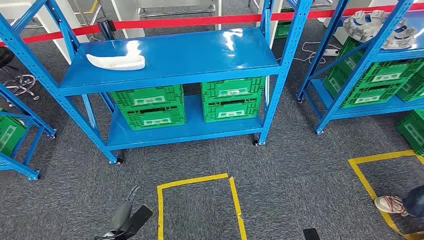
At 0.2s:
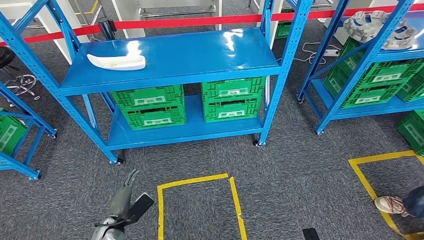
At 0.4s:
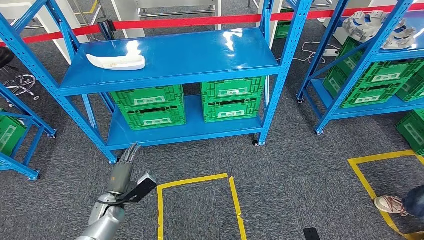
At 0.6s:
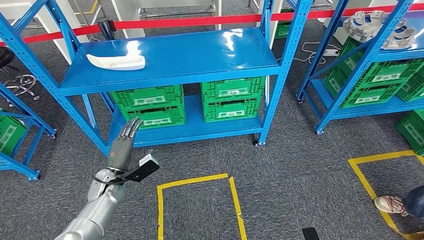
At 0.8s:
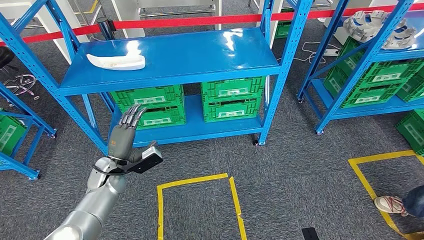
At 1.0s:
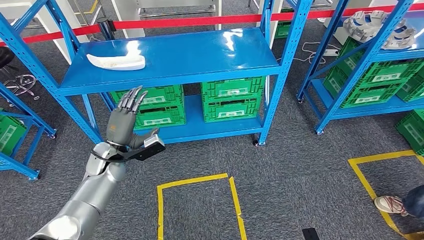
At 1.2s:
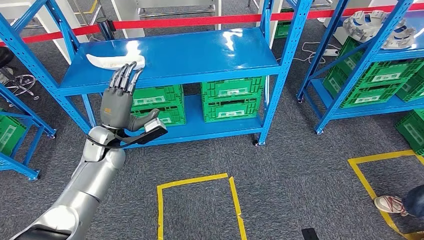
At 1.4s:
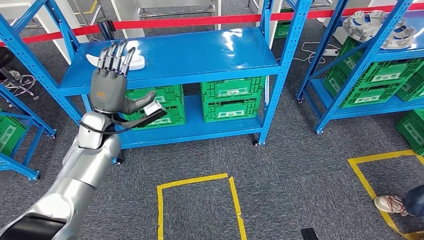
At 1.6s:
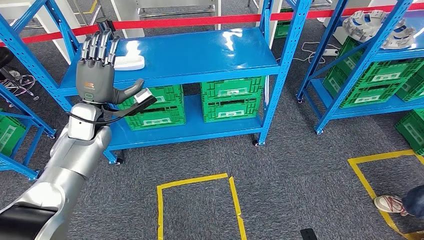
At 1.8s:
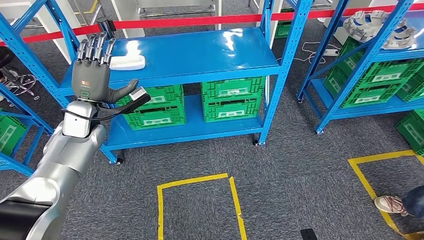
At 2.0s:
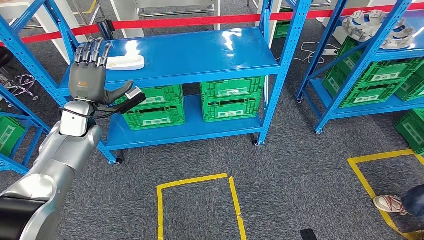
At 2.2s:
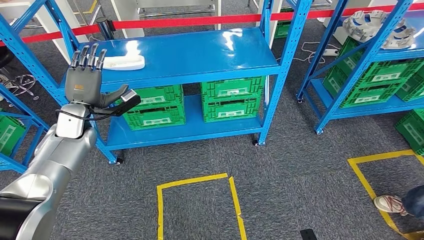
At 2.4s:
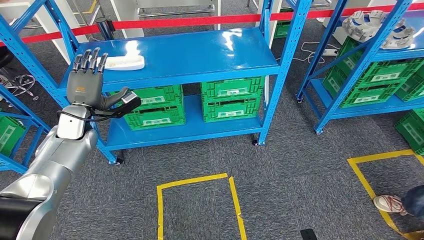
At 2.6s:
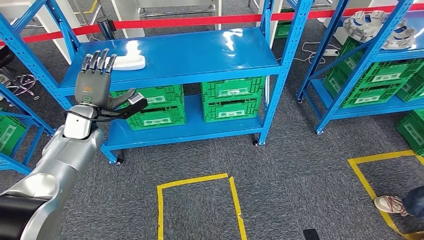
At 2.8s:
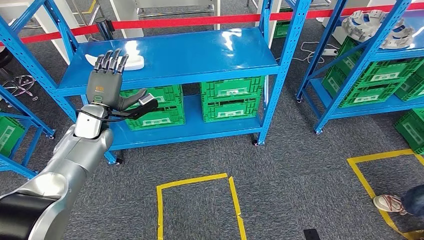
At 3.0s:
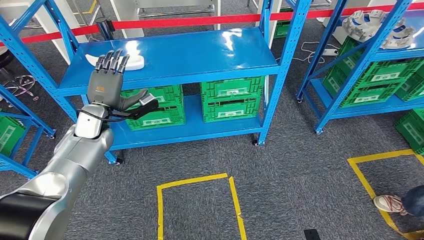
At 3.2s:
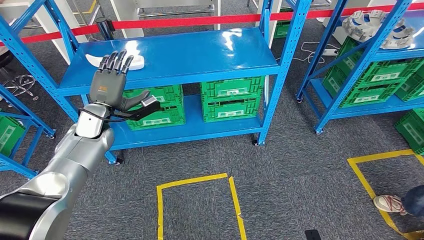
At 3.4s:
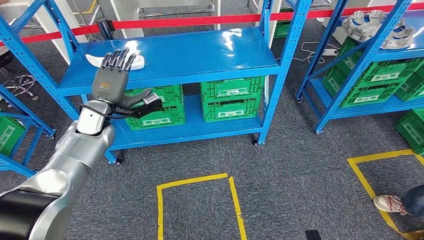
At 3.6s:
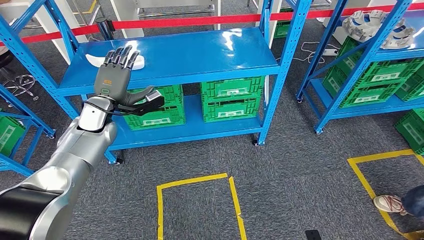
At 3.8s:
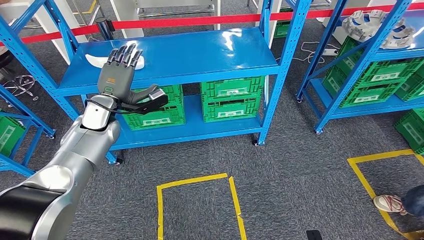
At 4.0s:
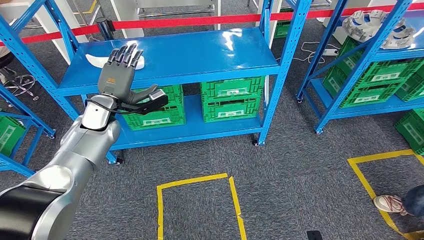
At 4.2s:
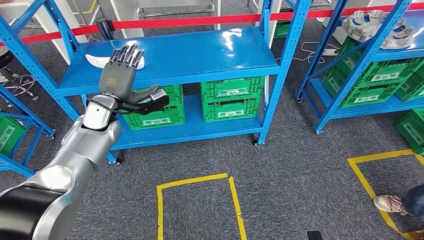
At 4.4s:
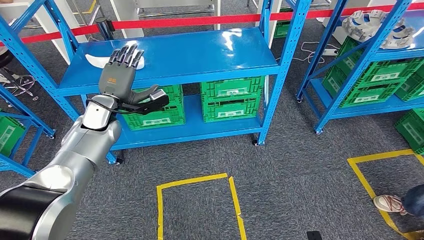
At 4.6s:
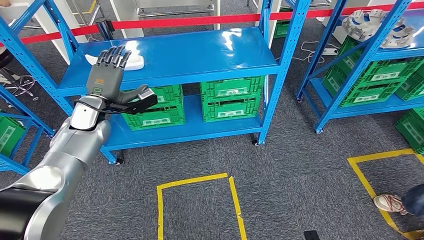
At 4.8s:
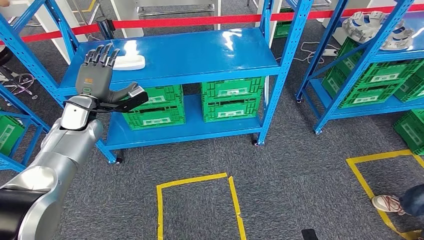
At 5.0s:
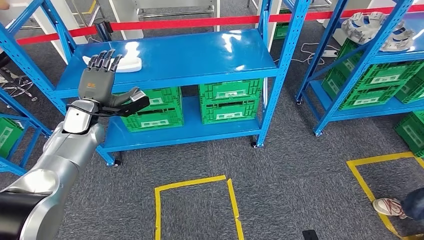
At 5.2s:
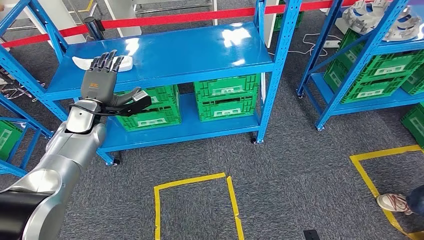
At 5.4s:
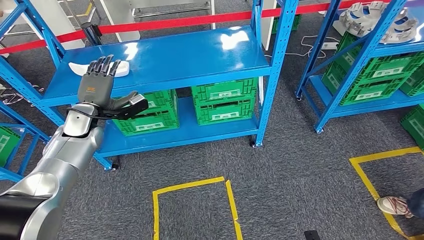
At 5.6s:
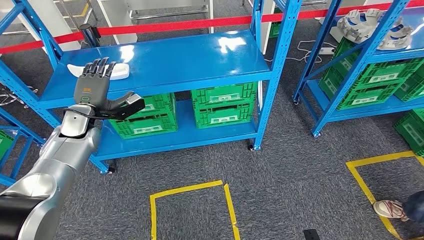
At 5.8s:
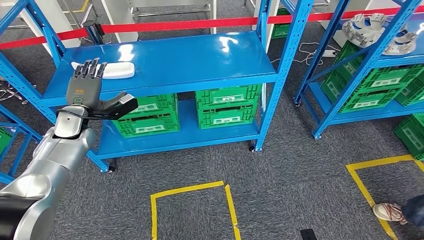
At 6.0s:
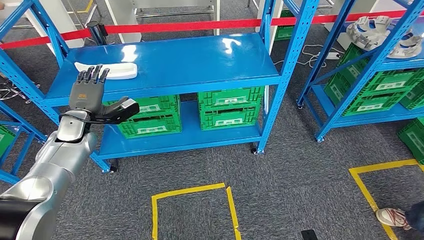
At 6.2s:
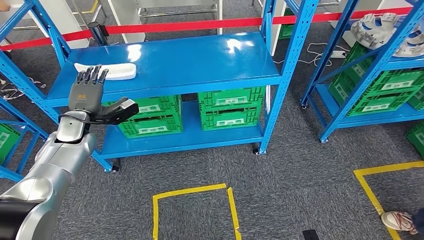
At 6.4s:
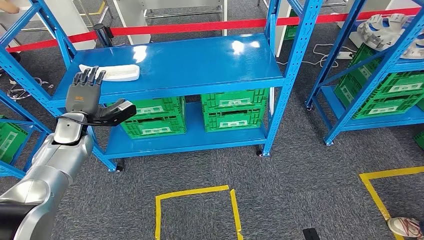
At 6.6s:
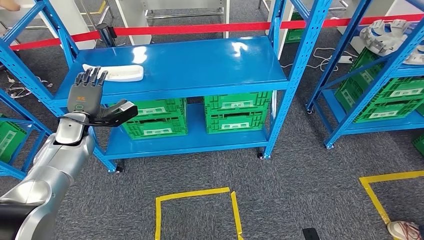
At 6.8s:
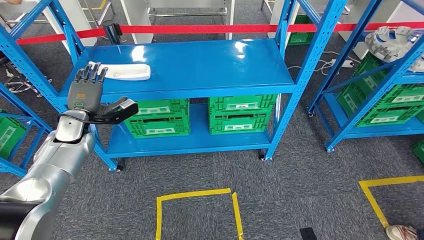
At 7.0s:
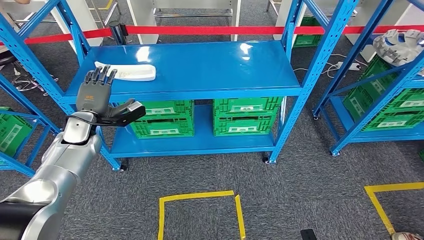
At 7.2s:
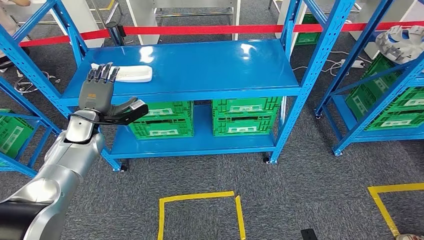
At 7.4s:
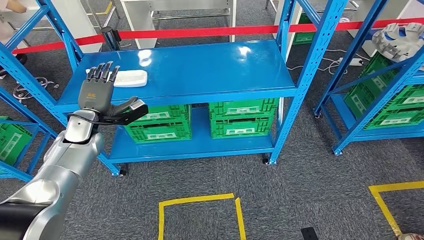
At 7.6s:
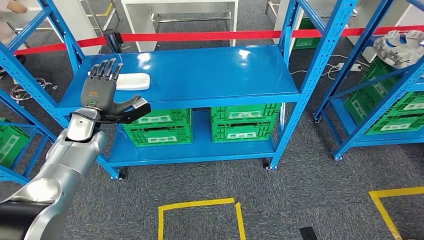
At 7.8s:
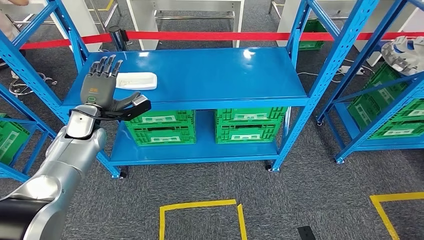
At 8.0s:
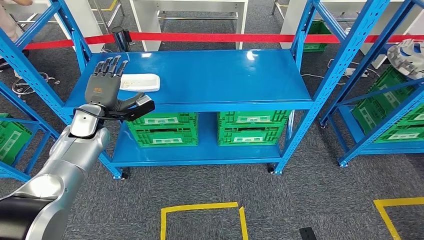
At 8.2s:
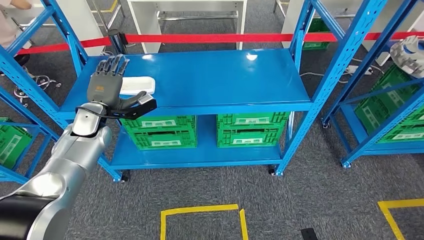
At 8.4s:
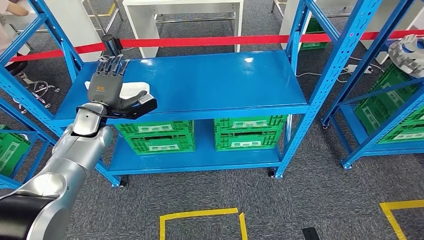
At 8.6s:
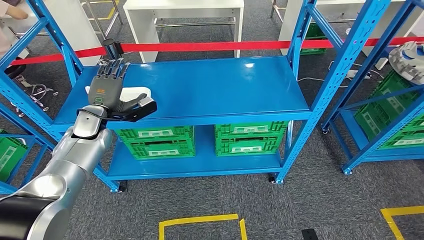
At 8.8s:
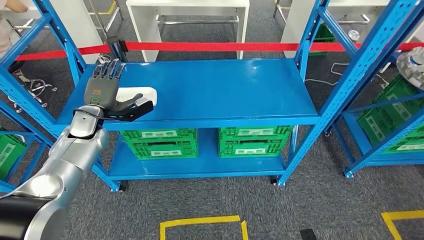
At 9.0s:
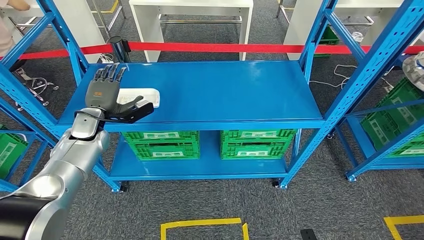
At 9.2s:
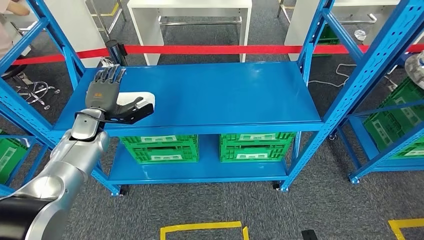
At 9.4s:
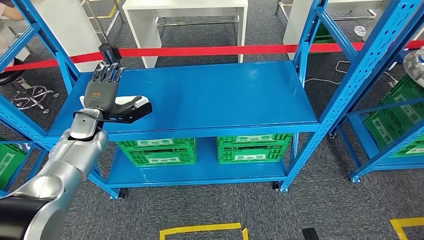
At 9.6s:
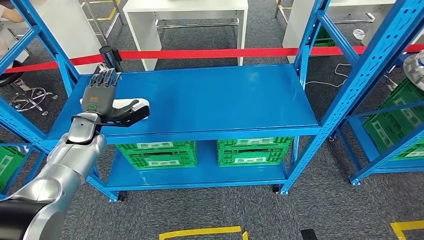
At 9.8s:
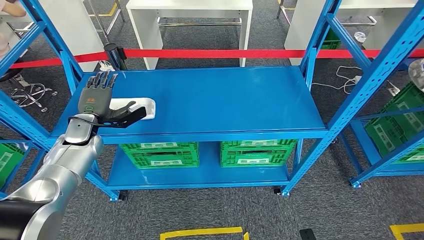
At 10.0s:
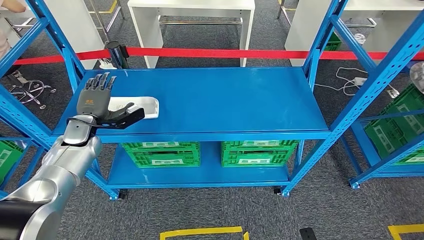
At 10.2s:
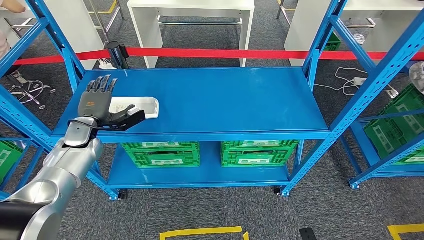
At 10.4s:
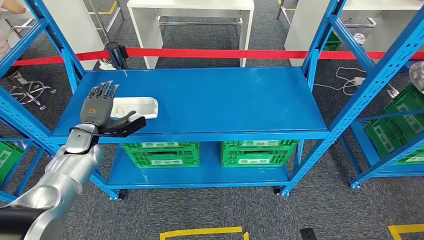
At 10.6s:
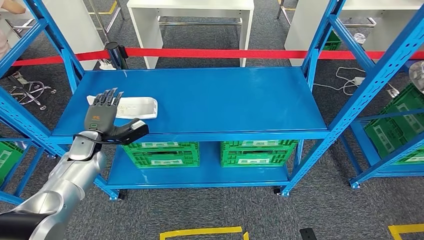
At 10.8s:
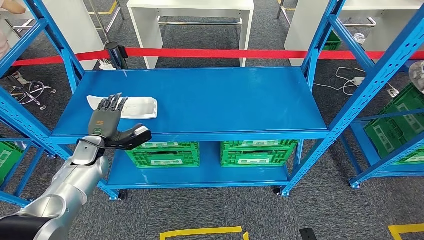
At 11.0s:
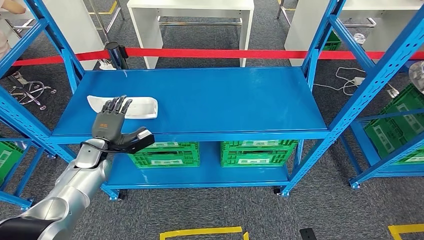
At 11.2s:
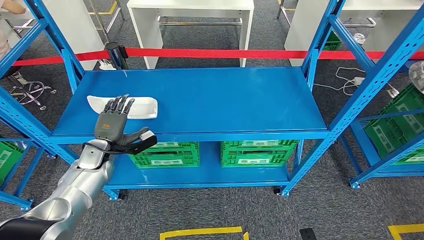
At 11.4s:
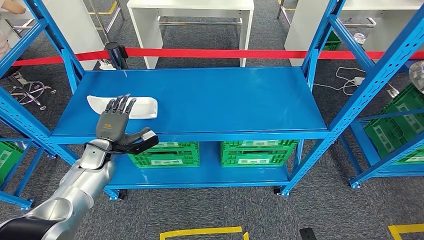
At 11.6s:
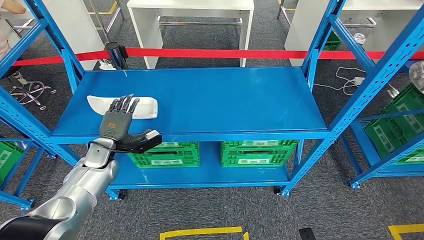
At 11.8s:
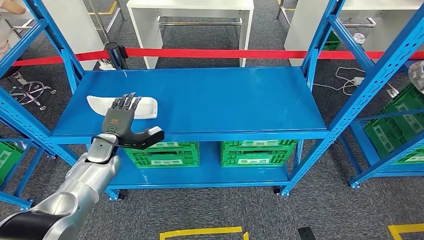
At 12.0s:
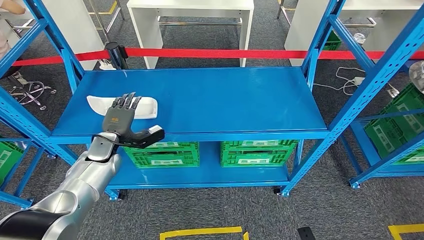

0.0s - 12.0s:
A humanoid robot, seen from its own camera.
3.0s - 4.4s: The hands make only small movements.
10.4s - 12.0s: The left hand moves to the right, roughly 5 cm.

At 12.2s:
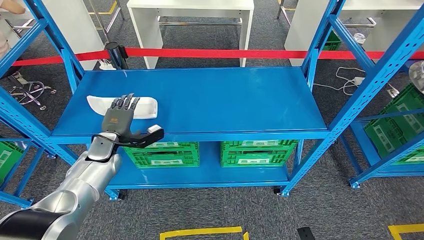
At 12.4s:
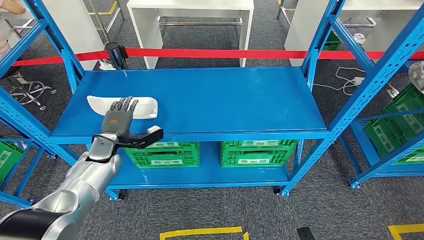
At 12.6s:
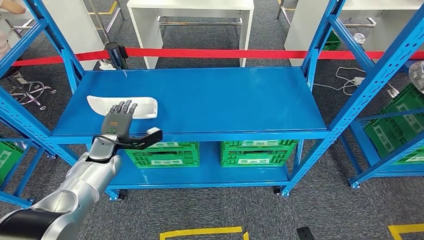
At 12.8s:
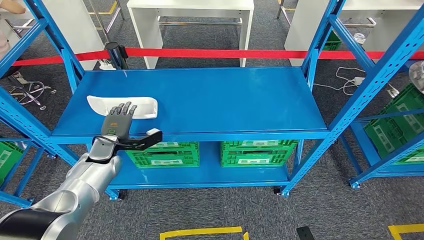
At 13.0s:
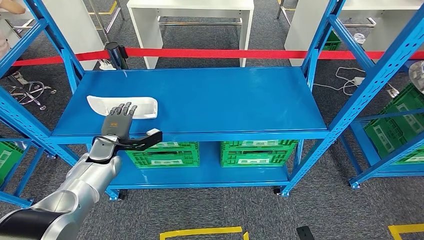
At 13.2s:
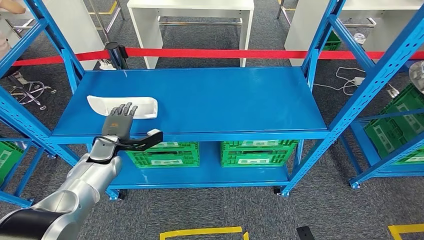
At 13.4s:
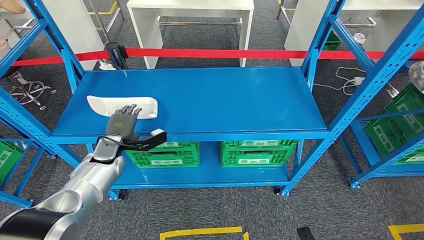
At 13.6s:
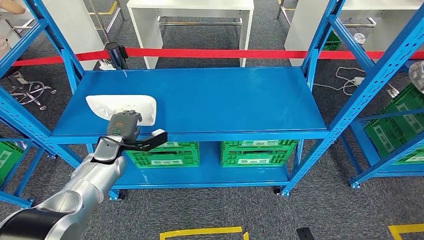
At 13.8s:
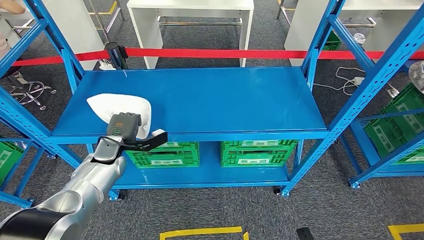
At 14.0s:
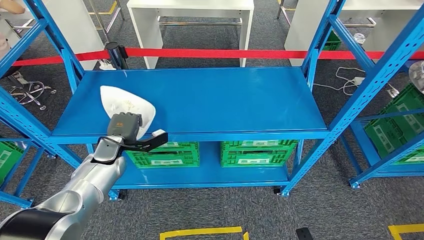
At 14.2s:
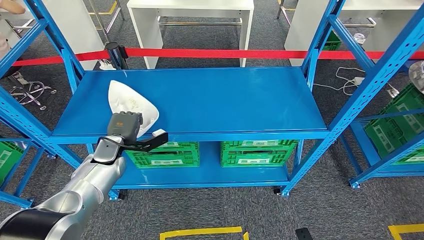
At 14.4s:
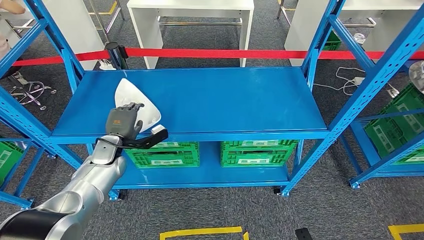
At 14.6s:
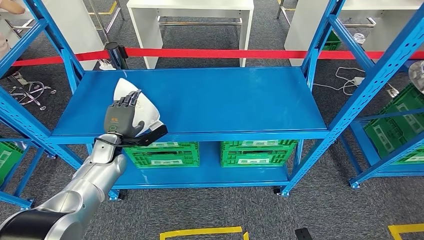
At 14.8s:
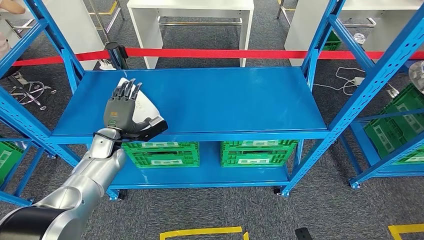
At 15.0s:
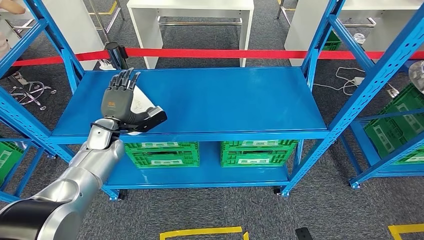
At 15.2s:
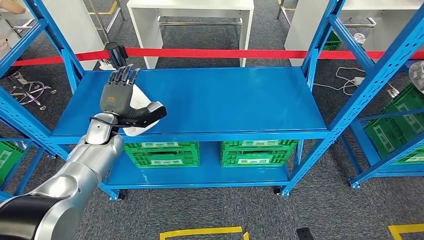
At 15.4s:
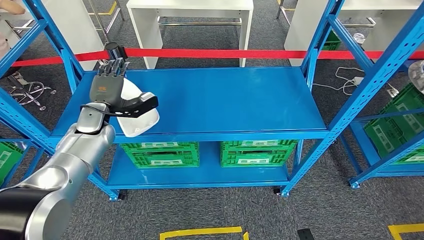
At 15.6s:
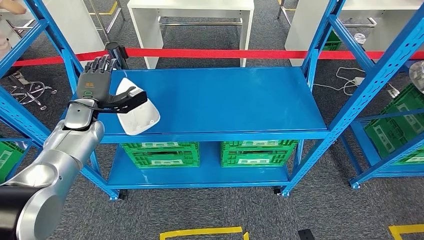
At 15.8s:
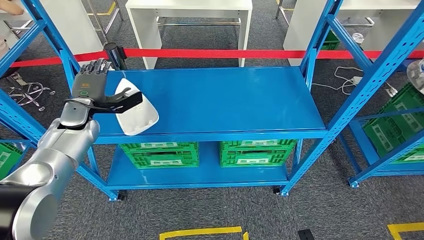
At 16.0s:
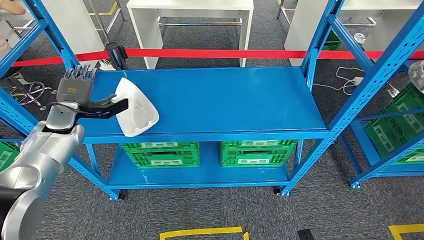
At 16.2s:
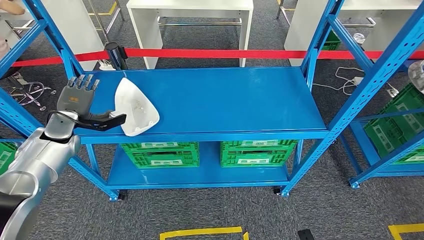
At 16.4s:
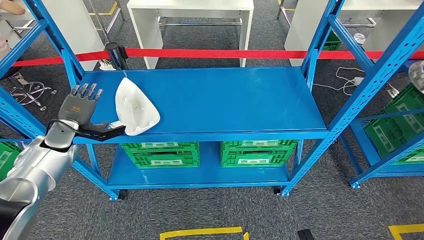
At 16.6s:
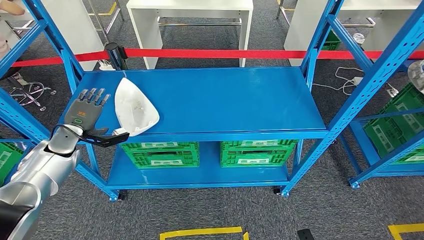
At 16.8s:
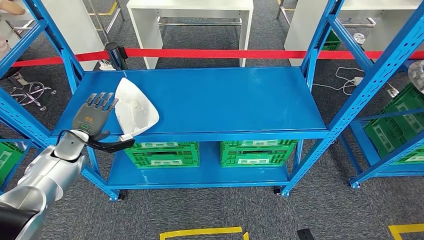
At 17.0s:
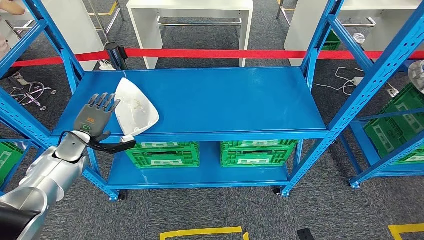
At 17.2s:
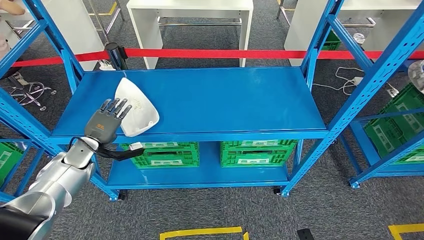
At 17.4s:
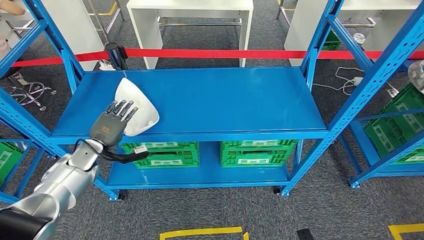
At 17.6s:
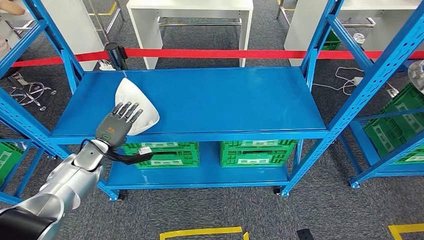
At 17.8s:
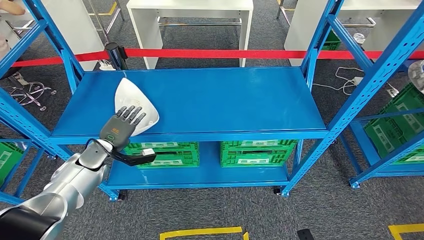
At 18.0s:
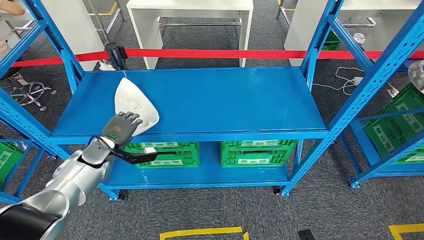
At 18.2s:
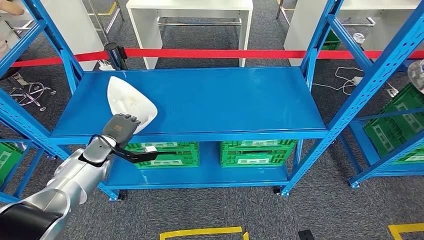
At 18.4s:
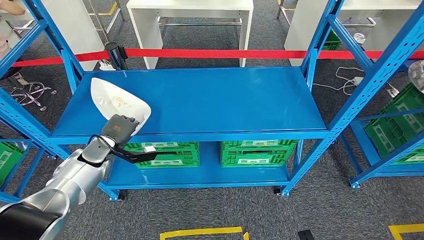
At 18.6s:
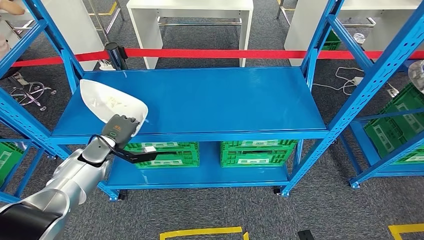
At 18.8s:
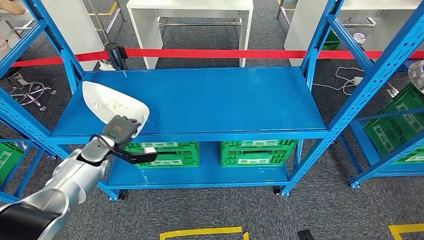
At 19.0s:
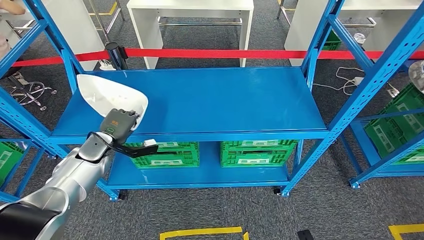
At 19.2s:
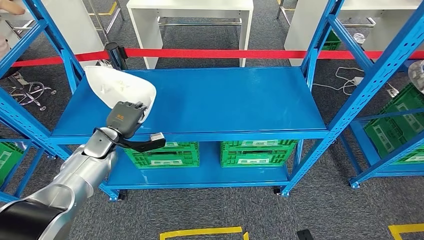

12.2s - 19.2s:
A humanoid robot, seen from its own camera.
12.2s - 13.6s: The hands make only small movements.
13.6s - 15.0s: The left hand moves approximately 5 cm.
15.0s - 16.4s: The left hand heads to the left, covering roughly 15 cm.
16.4s - 17.8s: The left hand heads to the right and downward, covering approximately 10 cm.
17.8s - 19.2s: The hands make only small movements.
